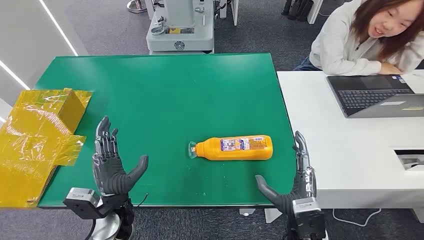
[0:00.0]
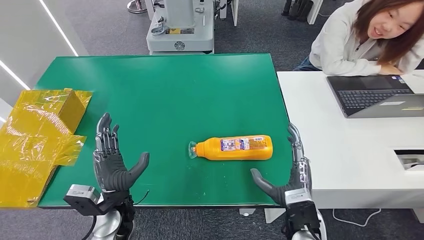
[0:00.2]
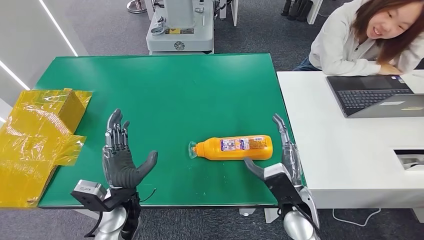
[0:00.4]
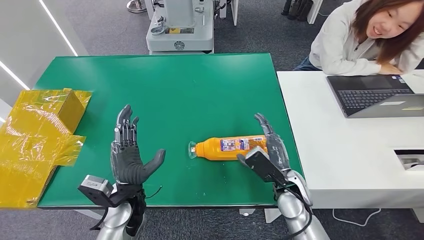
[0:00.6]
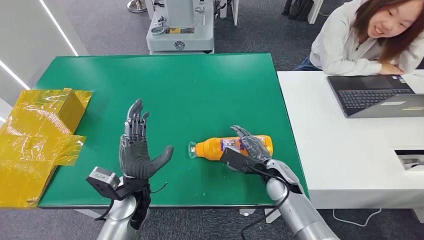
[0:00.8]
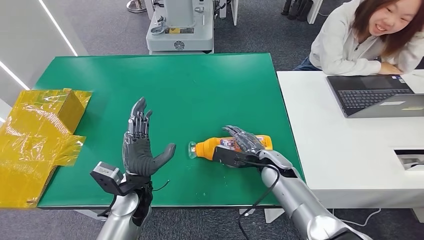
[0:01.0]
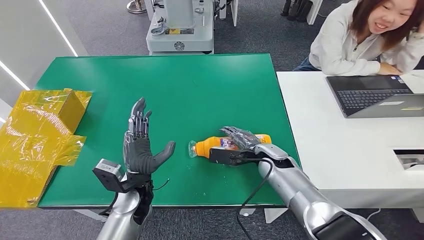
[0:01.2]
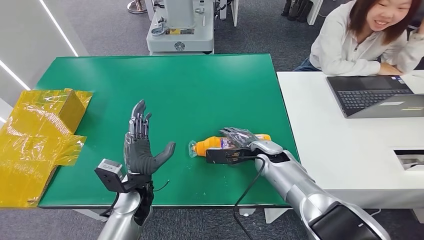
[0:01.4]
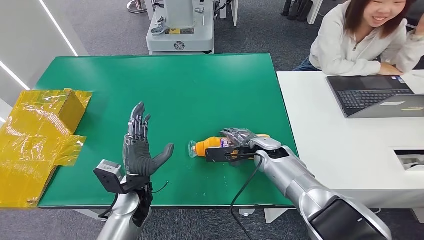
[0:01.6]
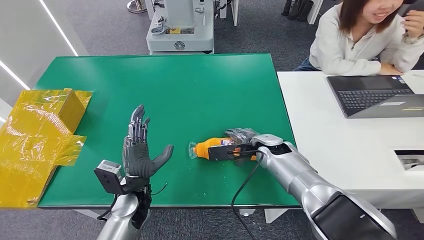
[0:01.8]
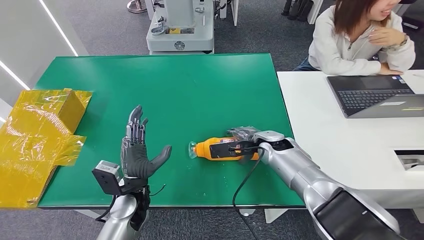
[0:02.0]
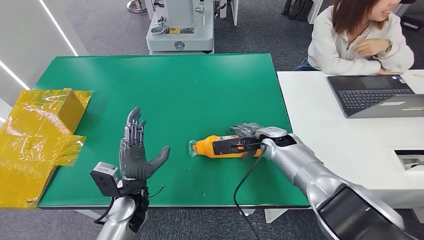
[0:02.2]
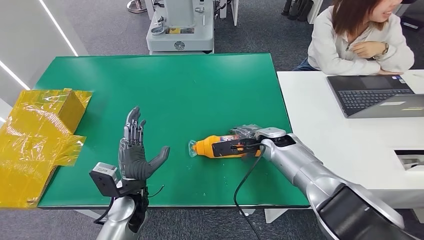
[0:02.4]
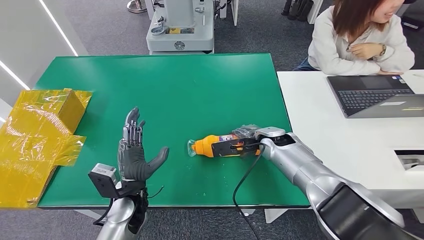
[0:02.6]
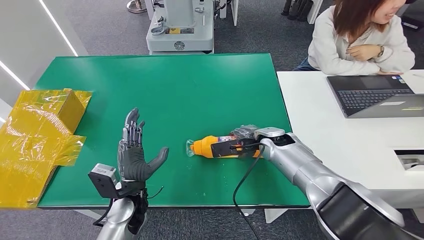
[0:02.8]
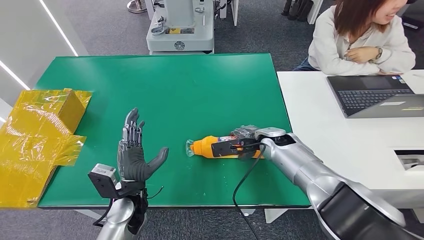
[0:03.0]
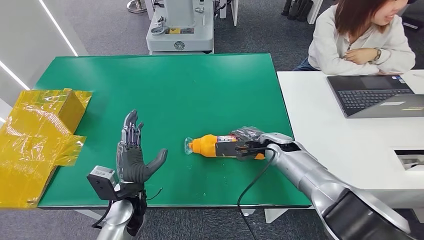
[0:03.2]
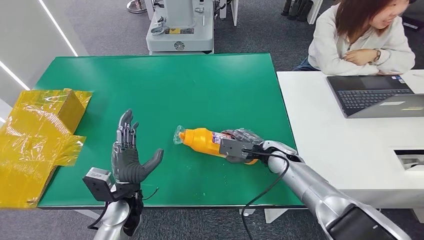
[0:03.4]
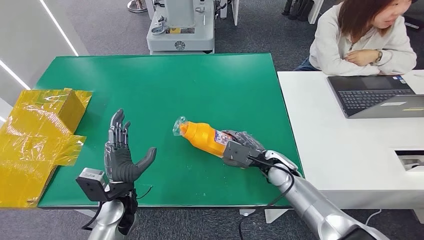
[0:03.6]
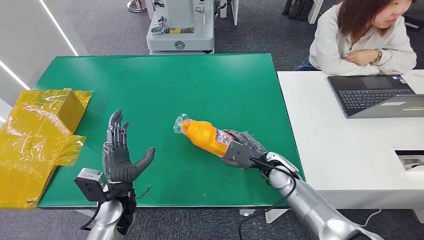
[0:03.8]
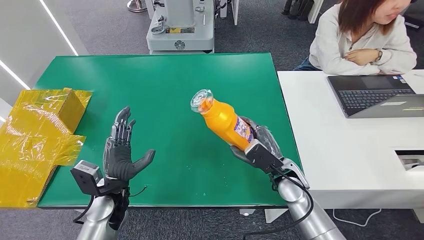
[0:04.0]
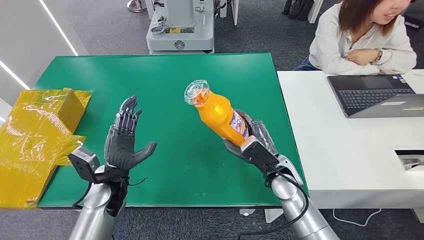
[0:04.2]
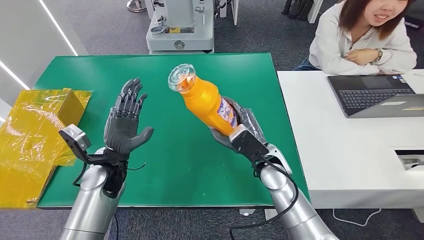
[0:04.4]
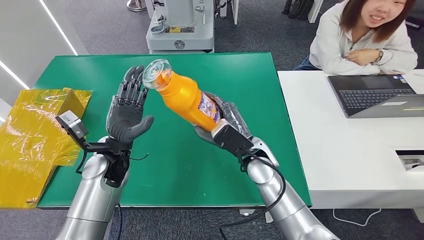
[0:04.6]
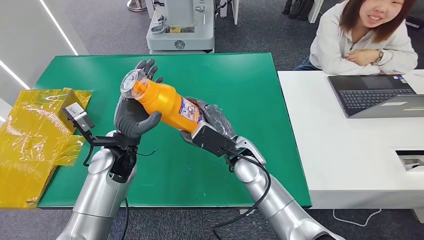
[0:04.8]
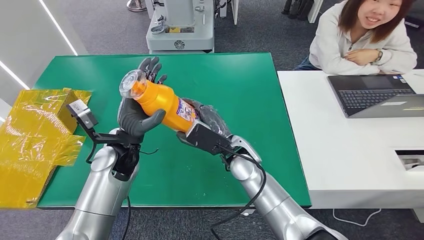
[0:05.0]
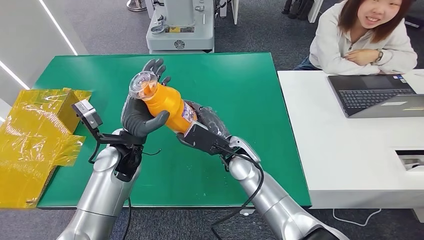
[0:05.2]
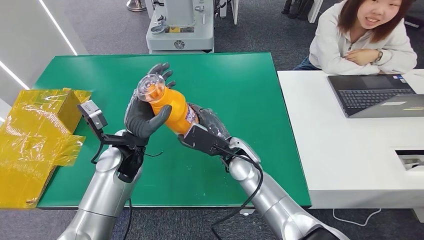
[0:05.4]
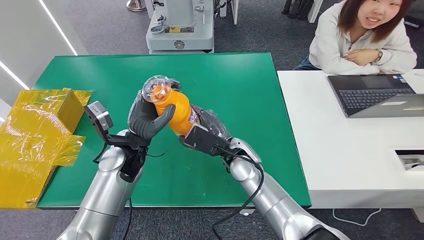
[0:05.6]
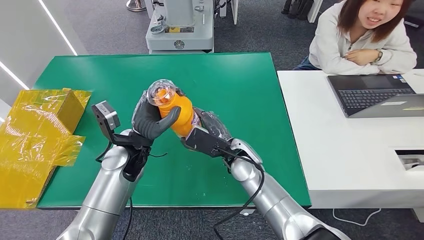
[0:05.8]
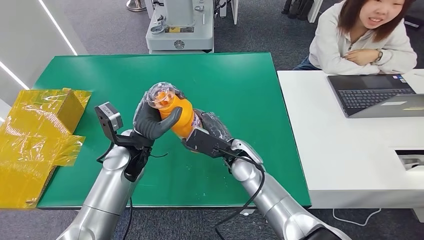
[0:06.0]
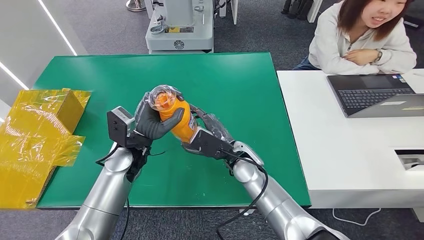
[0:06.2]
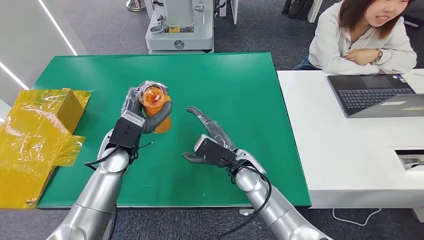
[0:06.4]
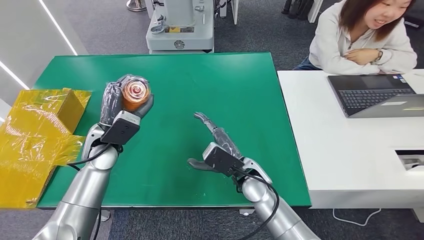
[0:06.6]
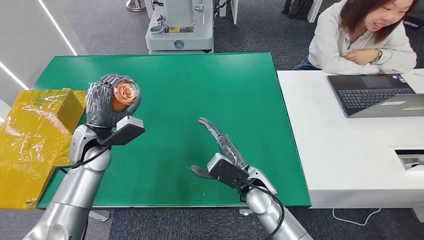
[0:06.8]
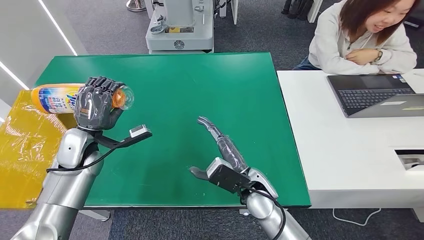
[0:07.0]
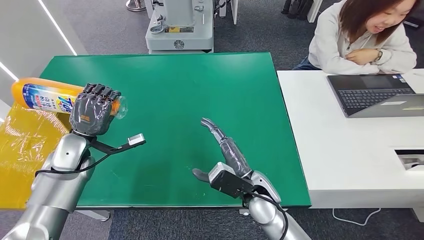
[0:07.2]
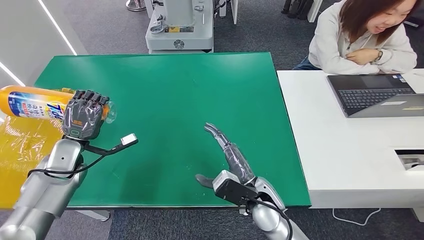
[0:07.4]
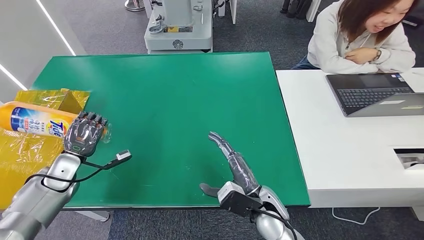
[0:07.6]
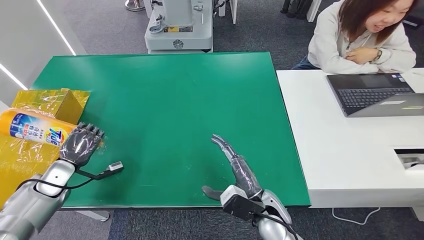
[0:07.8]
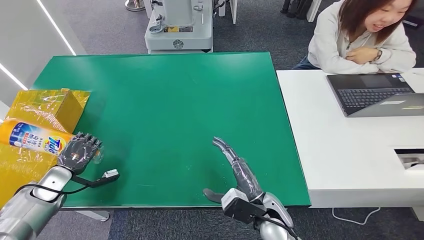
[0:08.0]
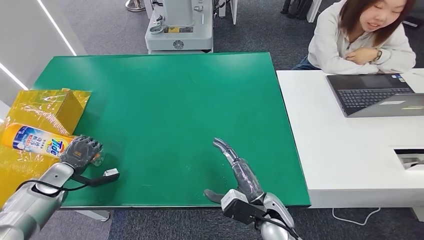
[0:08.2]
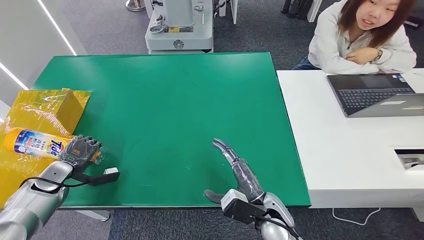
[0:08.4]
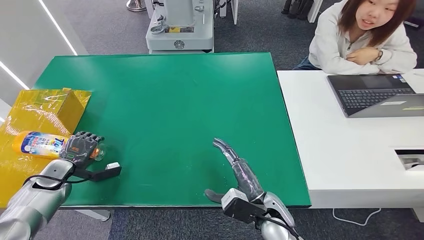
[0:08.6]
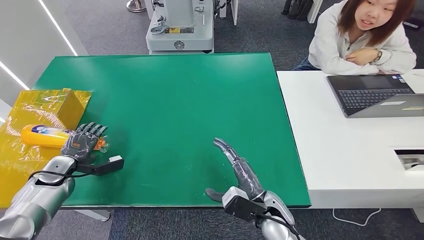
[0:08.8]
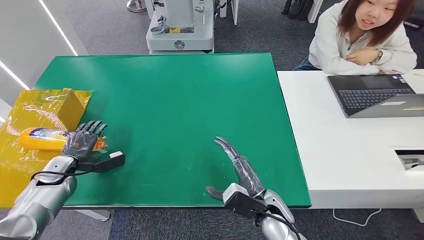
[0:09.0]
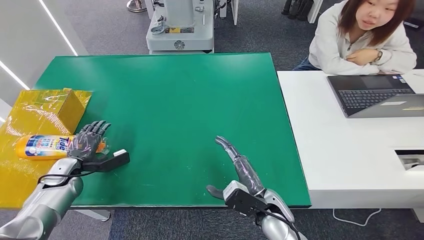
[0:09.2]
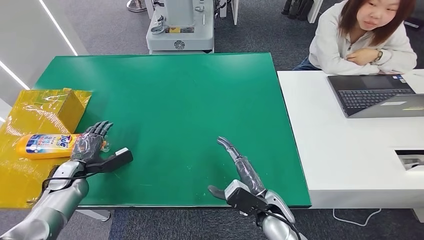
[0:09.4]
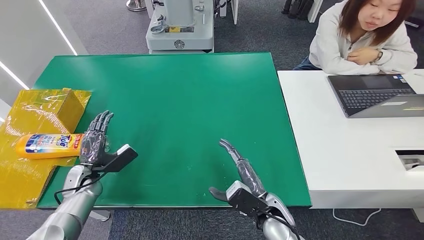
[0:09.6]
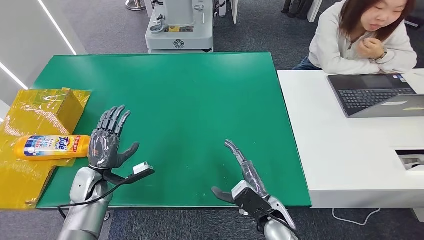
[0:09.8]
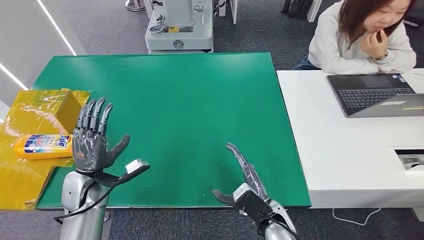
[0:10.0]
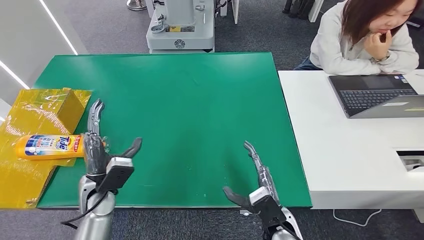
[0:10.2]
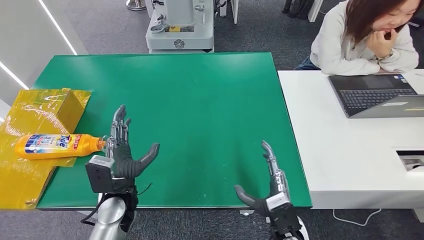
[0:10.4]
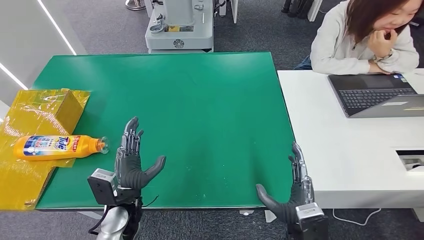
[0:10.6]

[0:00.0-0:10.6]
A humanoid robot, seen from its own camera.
Step, 0:00.0 to 0:04.8: Pick up the bottle from the table.
Step, 0:05.0 to 0:10.6: Turn the bottle to the front side.
0:01.6 to 0:03.0: There are only small adjustments of the hands.
0:04.6 to 0:06.0: There are only small adjustments of the hands.
0:09.0 to 0:10.6: The left hand moves to the right, about 25 cm. Meanwhile the right hand shifts about 5 cm backward.
